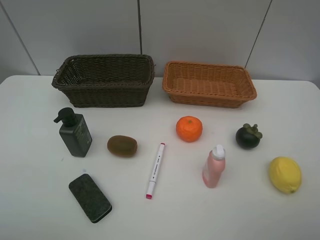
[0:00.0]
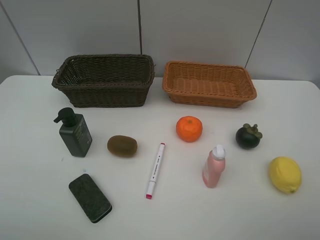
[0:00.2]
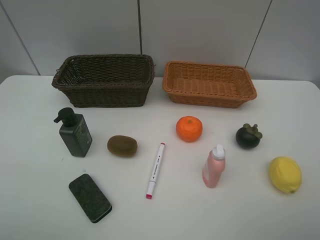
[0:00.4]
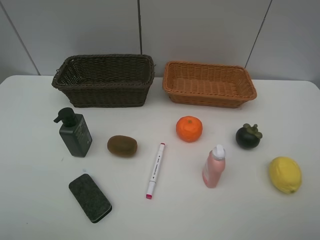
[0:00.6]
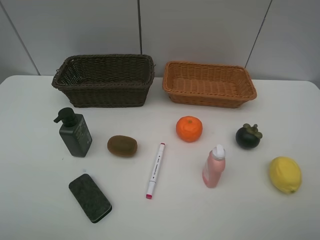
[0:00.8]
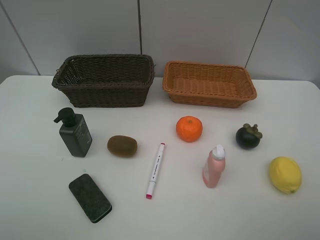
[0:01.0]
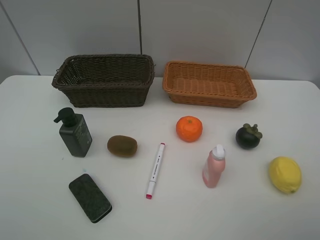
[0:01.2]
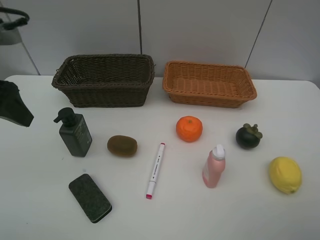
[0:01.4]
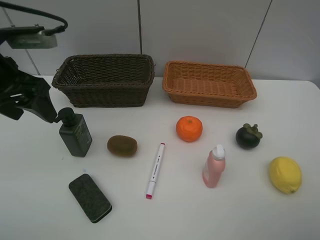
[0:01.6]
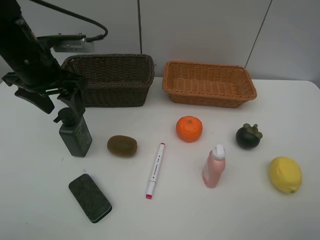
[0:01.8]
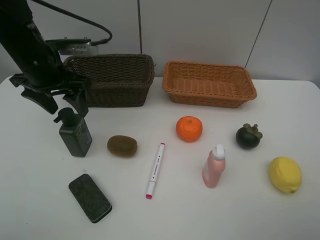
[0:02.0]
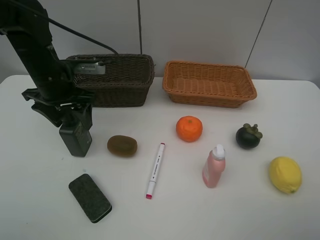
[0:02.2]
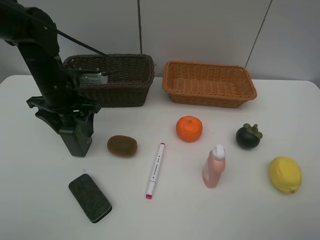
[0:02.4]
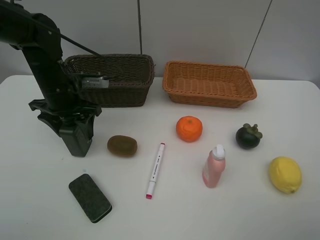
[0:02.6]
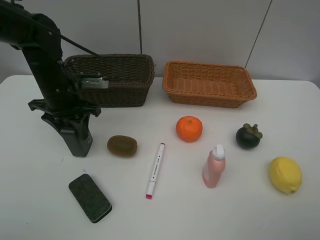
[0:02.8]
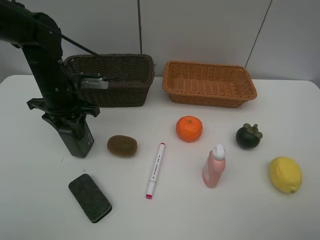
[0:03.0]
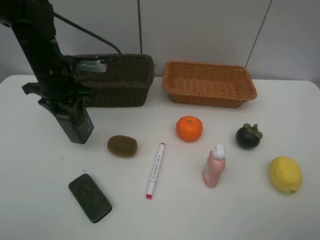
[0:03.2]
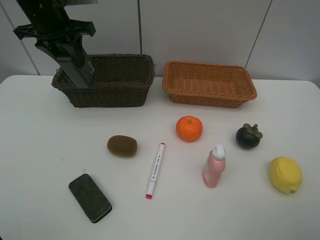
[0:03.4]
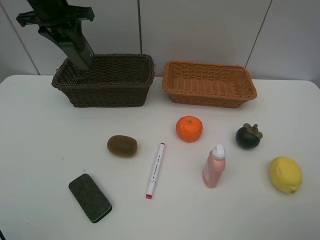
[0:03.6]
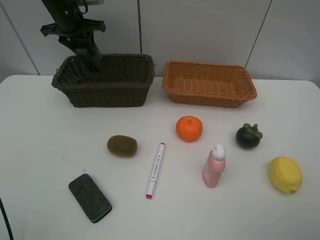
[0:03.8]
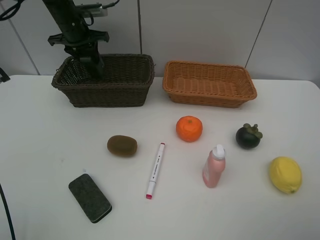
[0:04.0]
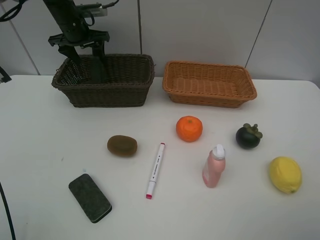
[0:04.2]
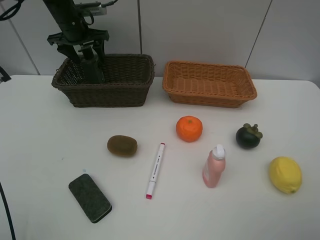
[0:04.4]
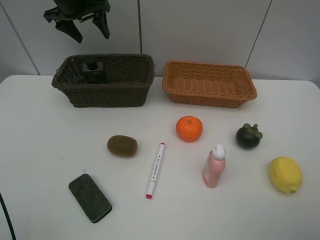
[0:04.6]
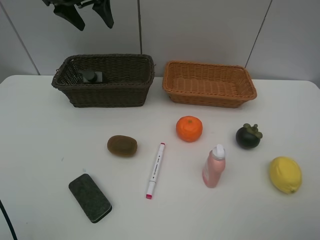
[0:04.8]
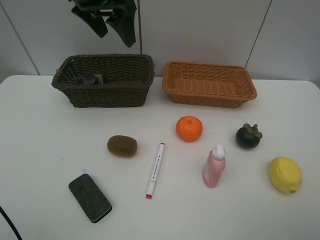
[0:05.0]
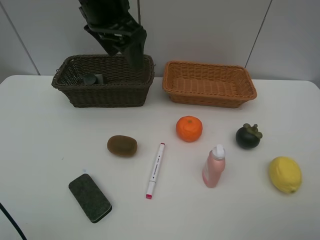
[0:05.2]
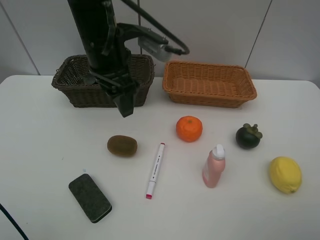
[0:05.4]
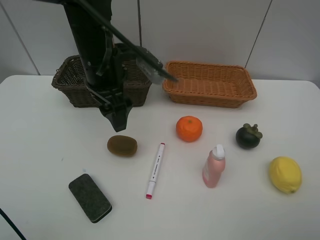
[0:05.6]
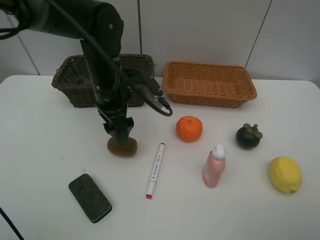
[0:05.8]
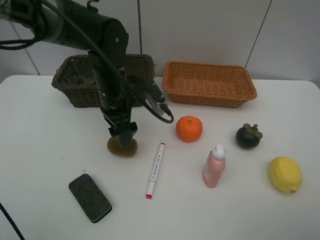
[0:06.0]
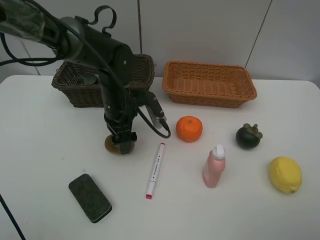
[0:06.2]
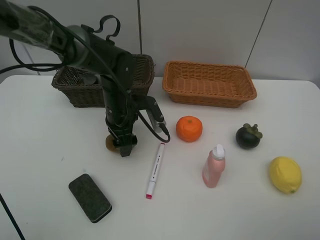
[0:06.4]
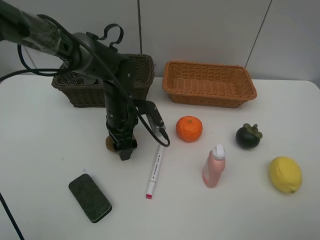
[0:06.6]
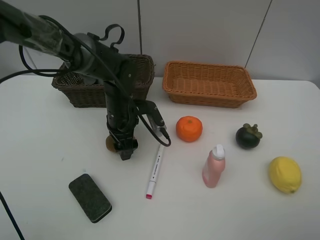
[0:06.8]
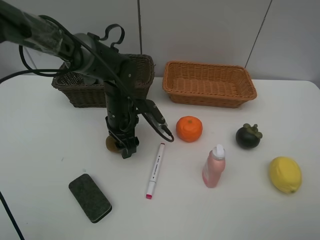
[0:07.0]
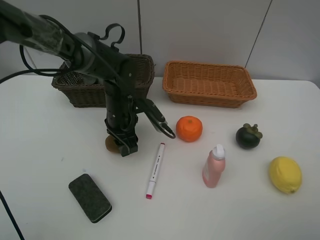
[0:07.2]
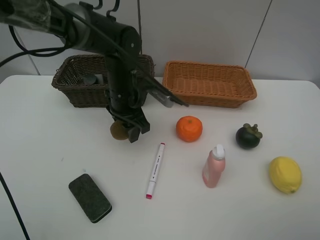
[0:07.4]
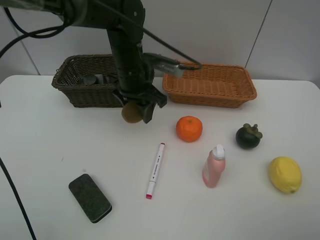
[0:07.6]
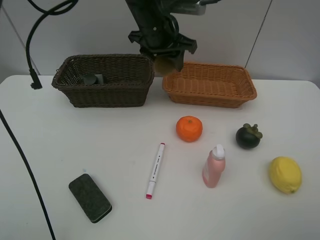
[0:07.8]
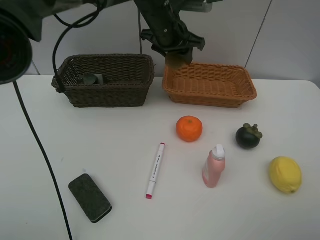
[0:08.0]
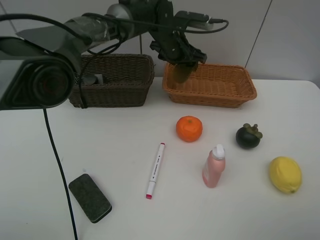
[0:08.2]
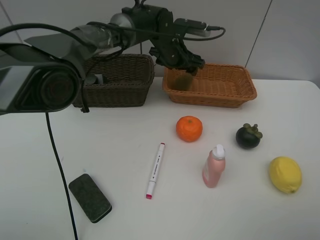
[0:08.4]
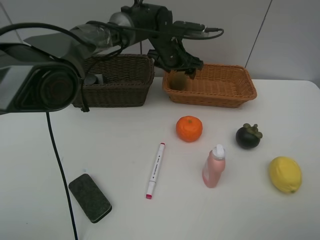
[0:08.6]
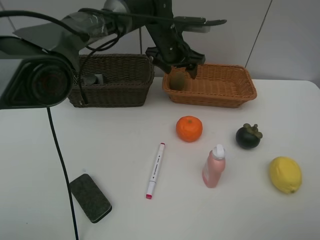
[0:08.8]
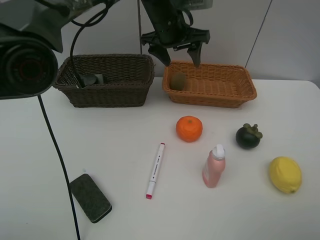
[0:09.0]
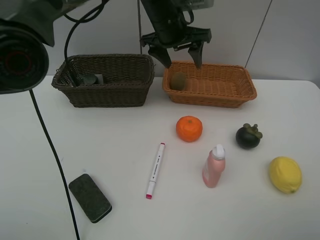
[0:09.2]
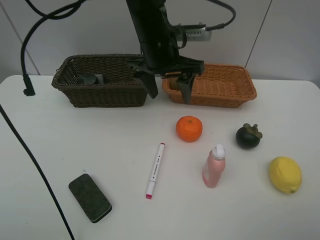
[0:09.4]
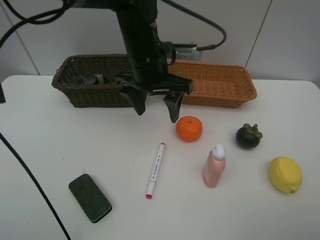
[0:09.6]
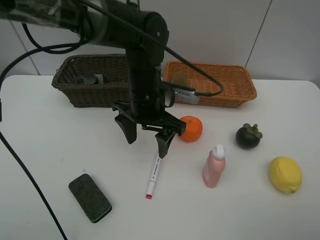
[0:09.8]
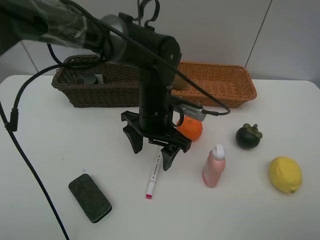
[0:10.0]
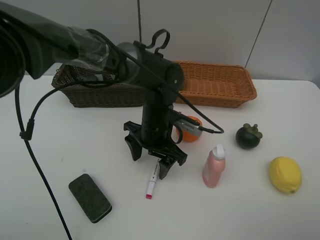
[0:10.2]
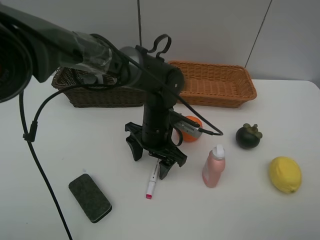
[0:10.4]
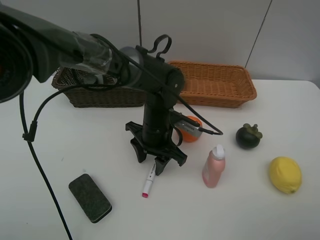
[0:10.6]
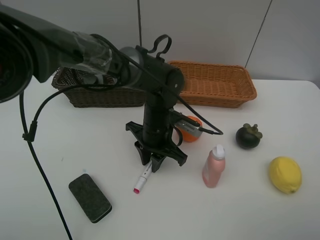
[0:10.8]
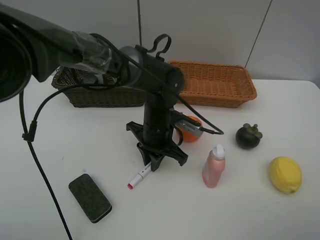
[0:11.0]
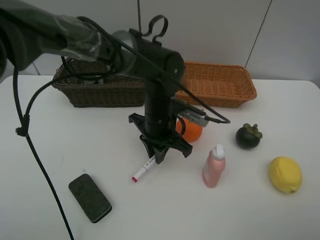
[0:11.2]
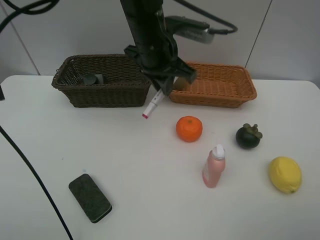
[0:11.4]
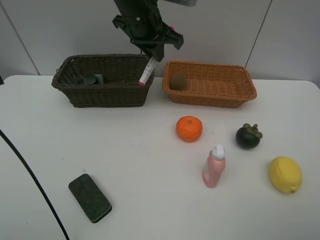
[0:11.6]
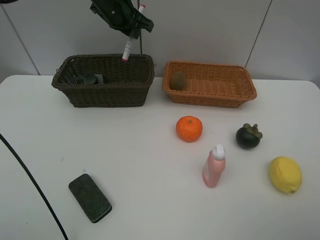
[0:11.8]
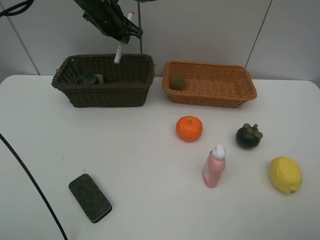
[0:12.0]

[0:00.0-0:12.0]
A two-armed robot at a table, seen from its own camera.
Task of the whole recording: Place multiple objects separately in different baskets.
Step, 0.0 to 3.2 s: Pick up the hard facial cleanser with left gripper.
Step, 3.4 to 4.4 s: Place the hard facial cleanser in the dark basket with left gripper.
Step, 4.6 to 7.4 s: Pick up kiwi with left gripper.
Step, 7.6 to 8.6 s: Place the kiwi in the light basket with left gripper.
Step, 8.8 to 11.2 s: Pick up the red marker with left gripper.
0.0 to 1.6 s: The left gripper goes some 25 cm forward.
1.6 to 3.0 s: The left gripper travels downward and forward by some 10 cm, and closes up.
3.0 to 4.4 s: The left gripper goes some 20 cm forward, and opens its fingers.
4.4 to 6.0 s: The left gripper travels backward and to the right by about 25 cm.
6.0 to 7.6 s: The left gripper changes place by about 5 cm, and closes its fingers.
7.6 to 9.0 s: The left gripper goes some 10 cm forward, upward and to the right, and opens up.
9.0 to 10.4 s: The left gripper is displaced downward and backward by some 20 cm.
10.4 to 12.0 s: The left gripper travels forward, upward and to the left by about 30 cm, and closes up.

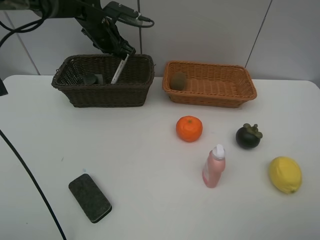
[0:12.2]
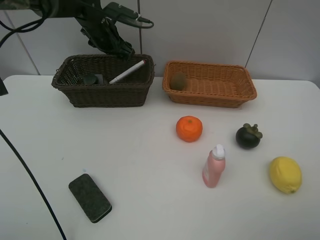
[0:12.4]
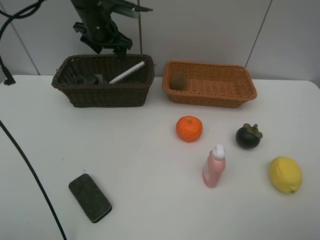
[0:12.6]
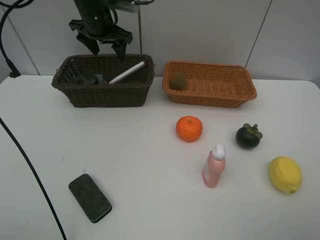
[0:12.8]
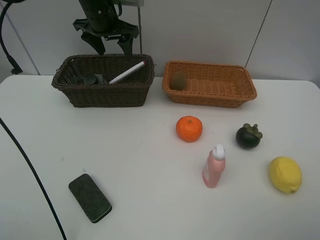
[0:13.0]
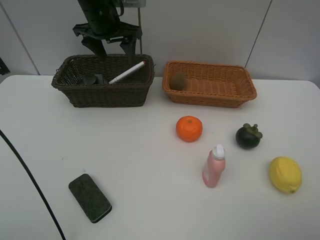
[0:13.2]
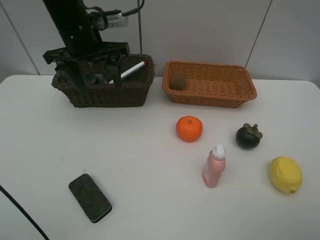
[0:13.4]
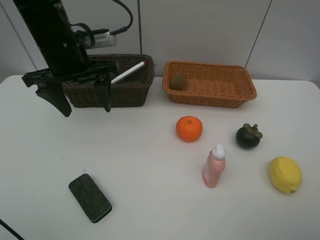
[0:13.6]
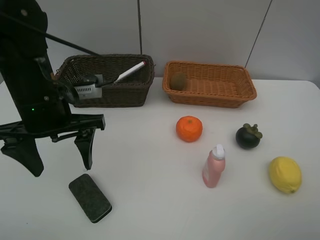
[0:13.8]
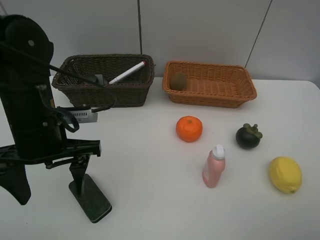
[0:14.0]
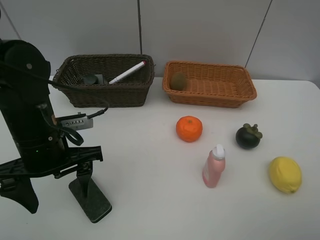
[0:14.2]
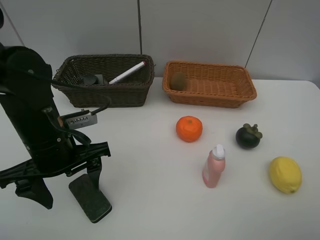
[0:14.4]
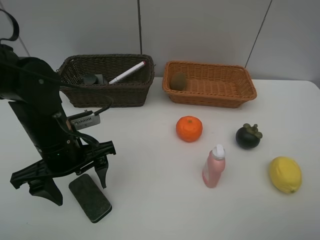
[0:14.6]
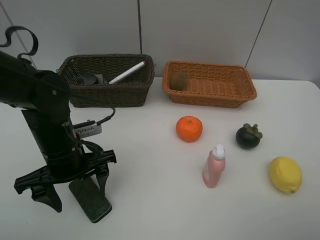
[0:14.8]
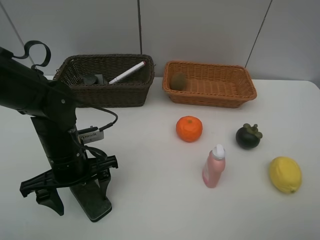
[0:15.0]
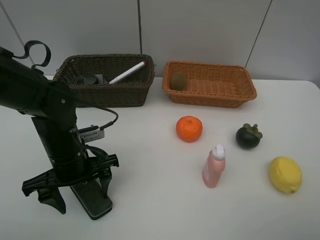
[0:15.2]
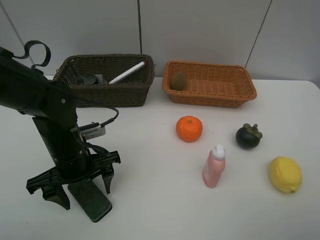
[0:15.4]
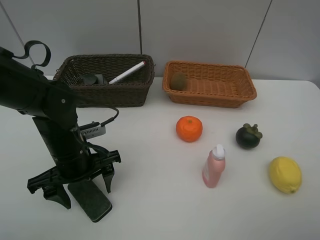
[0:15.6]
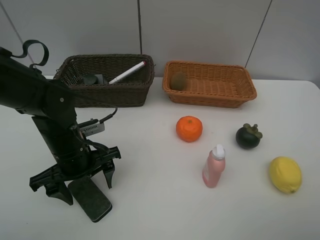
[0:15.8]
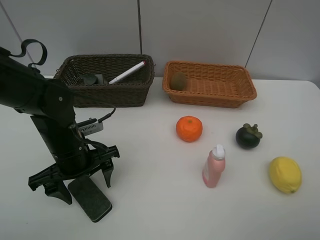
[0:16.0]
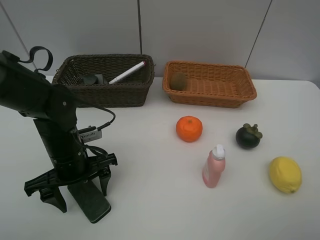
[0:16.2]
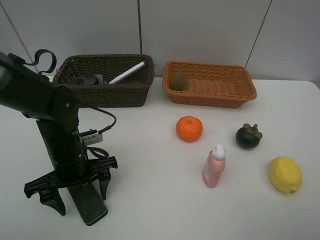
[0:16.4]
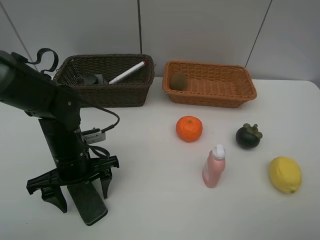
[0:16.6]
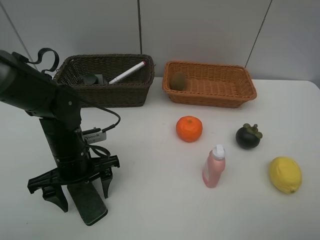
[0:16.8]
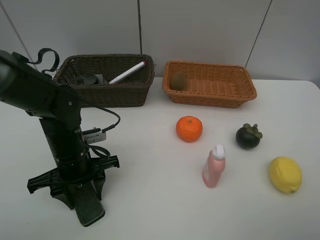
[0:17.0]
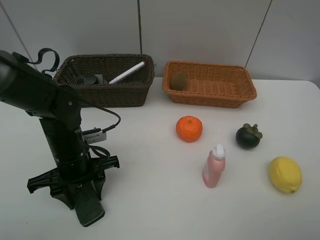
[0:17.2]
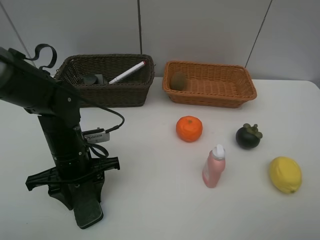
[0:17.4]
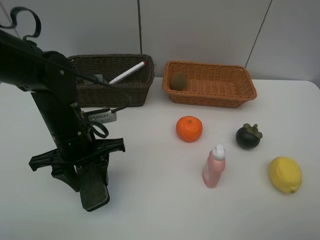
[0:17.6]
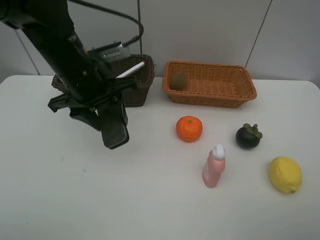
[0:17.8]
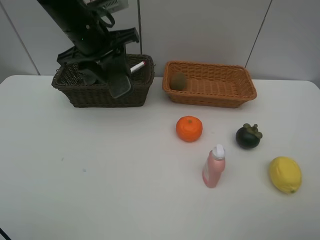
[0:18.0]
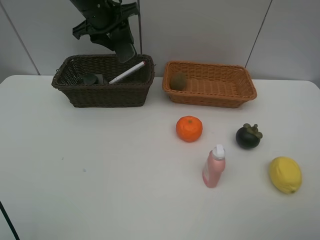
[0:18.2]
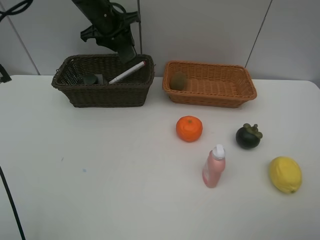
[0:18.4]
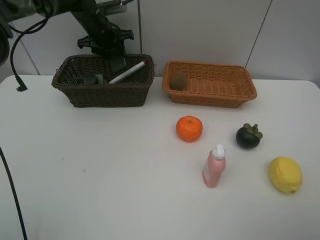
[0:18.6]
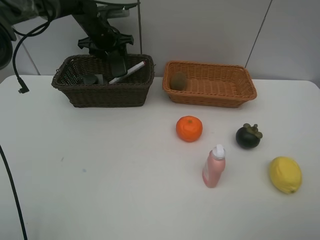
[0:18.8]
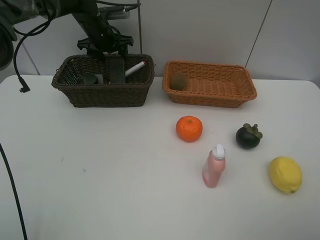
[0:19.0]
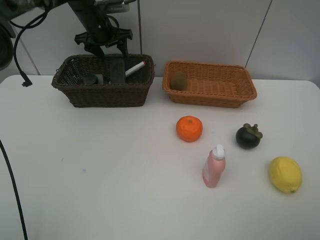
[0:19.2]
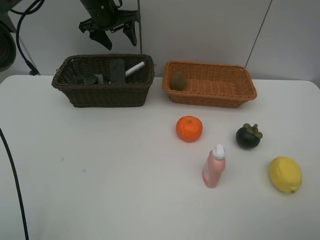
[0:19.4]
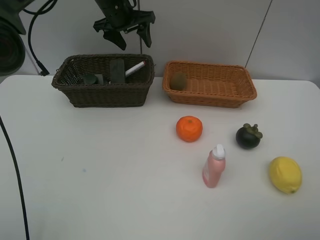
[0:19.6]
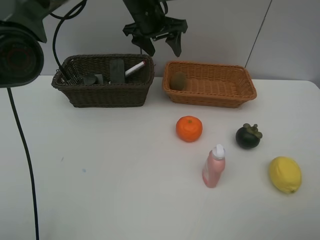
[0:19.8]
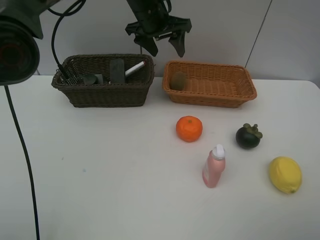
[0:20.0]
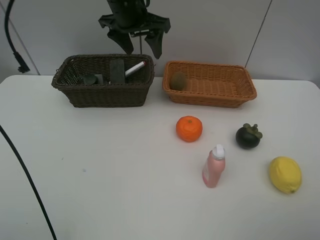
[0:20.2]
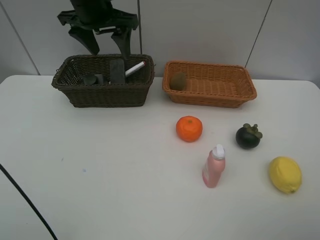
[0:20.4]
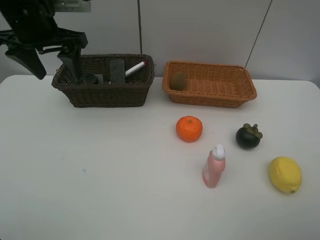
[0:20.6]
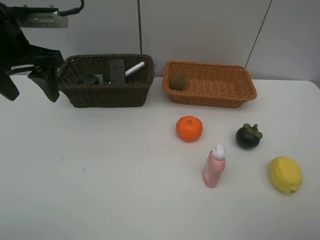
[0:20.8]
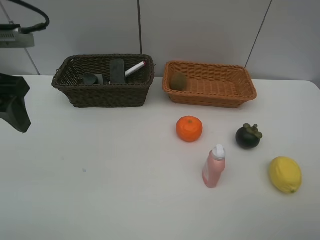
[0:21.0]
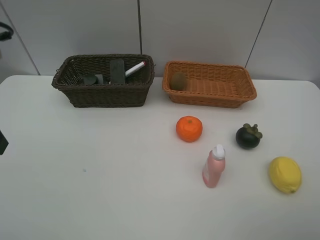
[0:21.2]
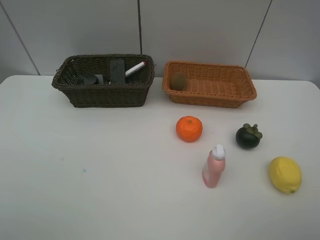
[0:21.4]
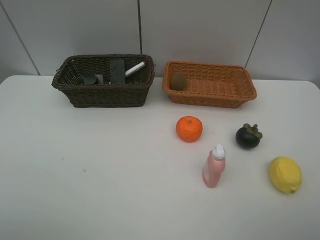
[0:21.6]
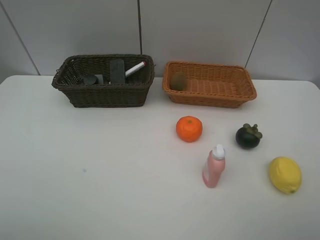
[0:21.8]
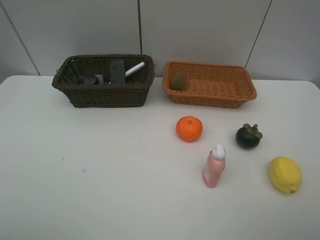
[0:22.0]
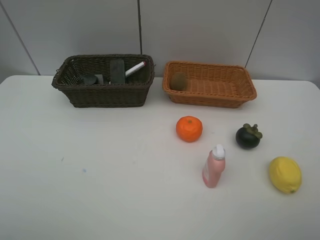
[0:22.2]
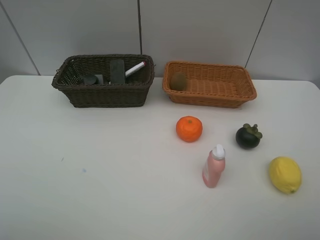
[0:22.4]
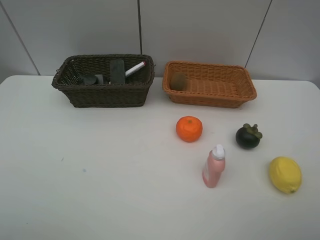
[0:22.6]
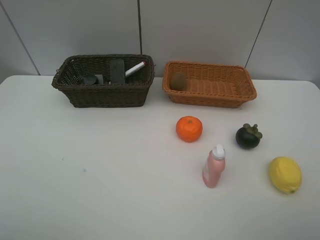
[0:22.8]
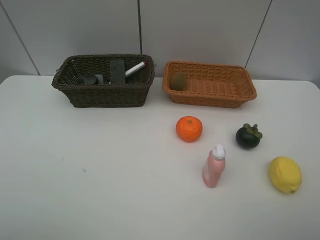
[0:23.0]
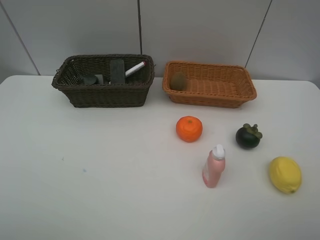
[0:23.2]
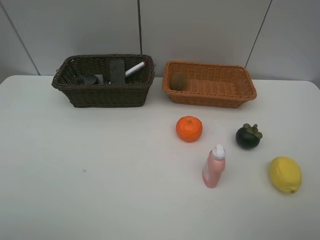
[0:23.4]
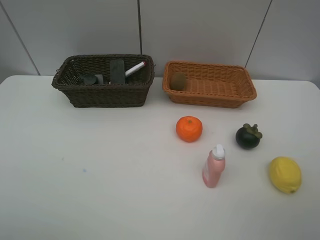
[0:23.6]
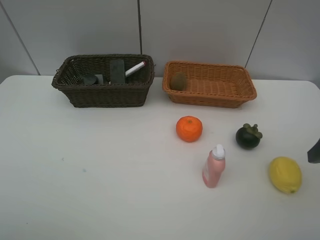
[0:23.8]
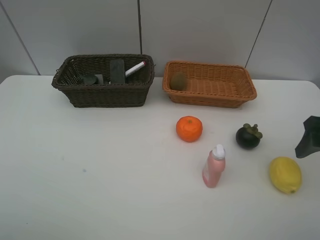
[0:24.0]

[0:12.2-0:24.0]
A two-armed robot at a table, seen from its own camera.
Task of the whole recording: Place multiple objects separately in different baskets.
Step, 12.6 to 17.4 s: Pick up blackboard eraser with left gripper.
Step, 17.6 to 19.0 s: Place the blackboard eraser in the dark basket with left gripper.
12.2 to 13.6 s: The left gripper shifts about 20 cm backward, and opens.
13.6 to 15.2 s: The left gripper goes approximately 15 cm downward and backward.
15.2 to 16.6 s: The grippers make only small movements.
16.6 to 18.2 s: The left gripper goes approximately 30 cm forward and upward, and closes its fingers.
18.2 to 19.6 s: The left gripper reaches approximately 10 cm downward, then returns, and opens up.
19.6 to 21.0 s: The left gripper shifts about 35 cm backward and to the left.
21.0 to 22.6 s: The left gripper shifts approximately 20 cm backward.
22.6 to 24.0 s: The right gripper goes roughly 20 cm forward.
